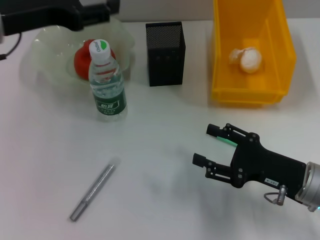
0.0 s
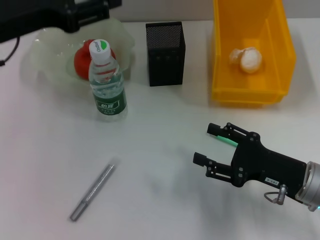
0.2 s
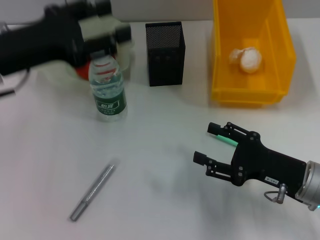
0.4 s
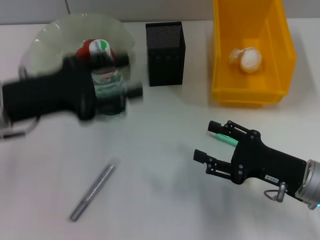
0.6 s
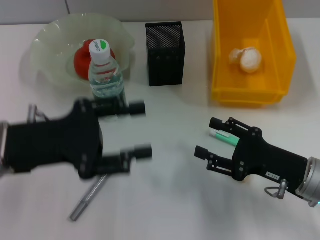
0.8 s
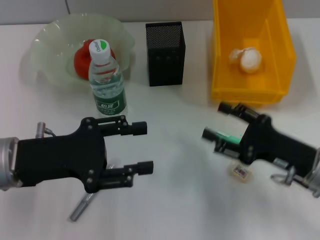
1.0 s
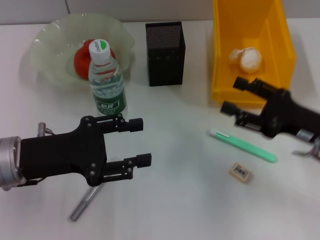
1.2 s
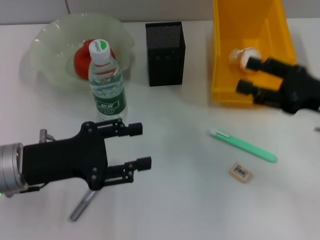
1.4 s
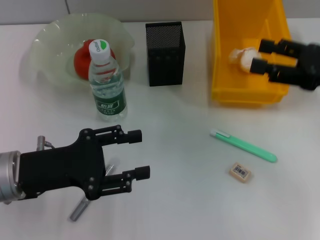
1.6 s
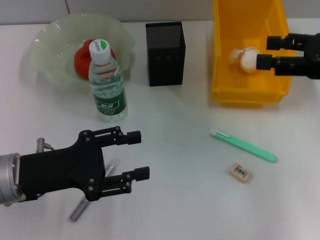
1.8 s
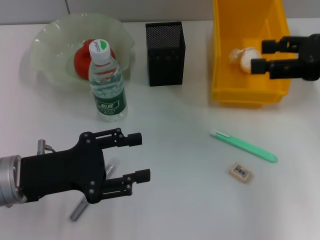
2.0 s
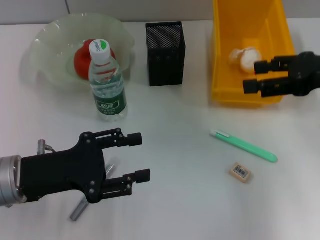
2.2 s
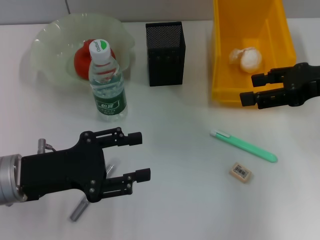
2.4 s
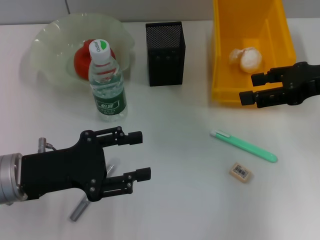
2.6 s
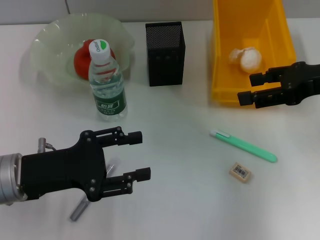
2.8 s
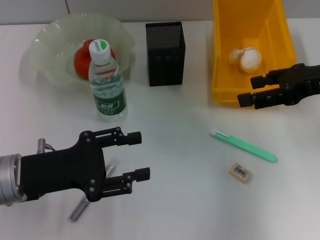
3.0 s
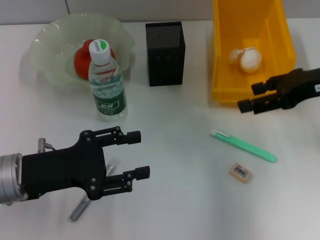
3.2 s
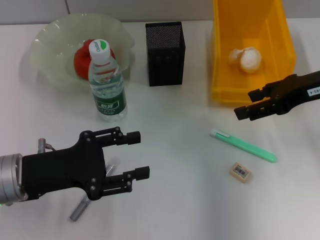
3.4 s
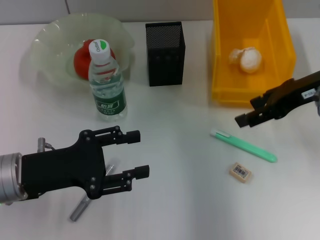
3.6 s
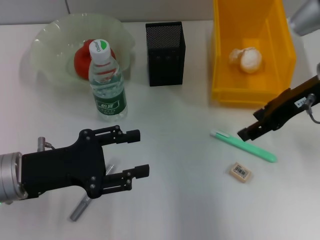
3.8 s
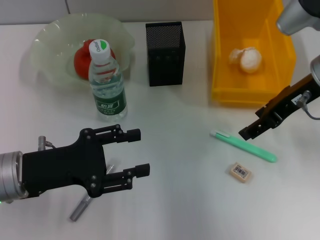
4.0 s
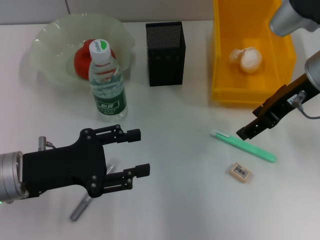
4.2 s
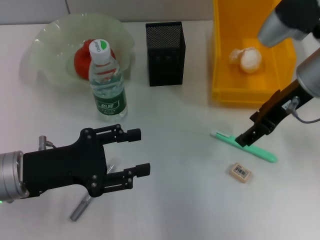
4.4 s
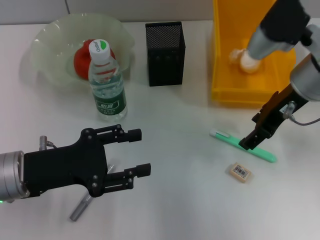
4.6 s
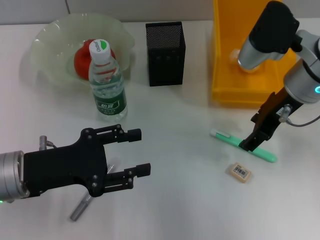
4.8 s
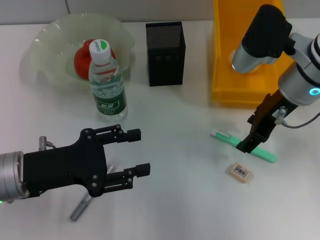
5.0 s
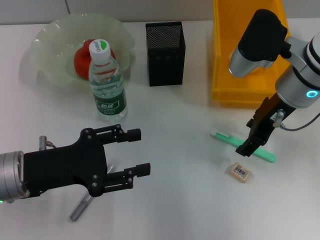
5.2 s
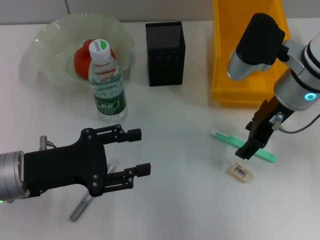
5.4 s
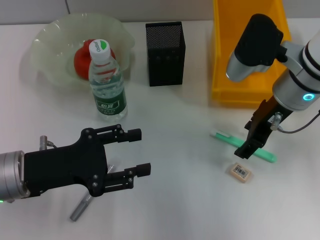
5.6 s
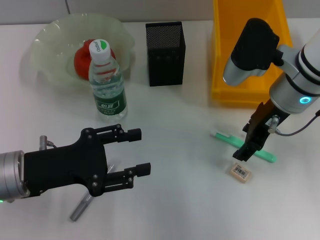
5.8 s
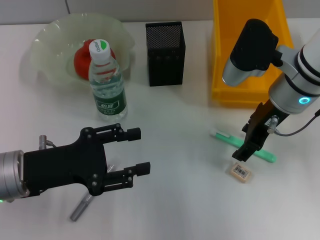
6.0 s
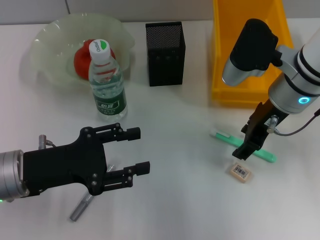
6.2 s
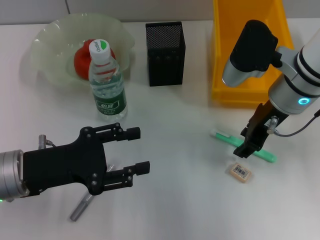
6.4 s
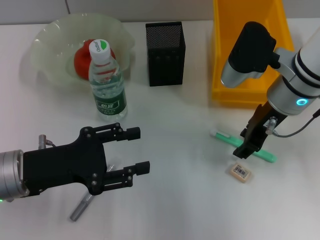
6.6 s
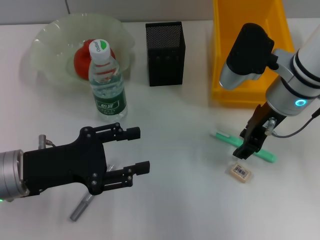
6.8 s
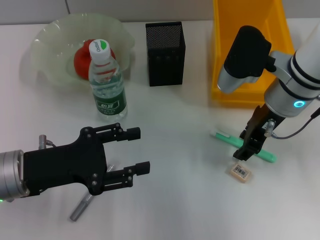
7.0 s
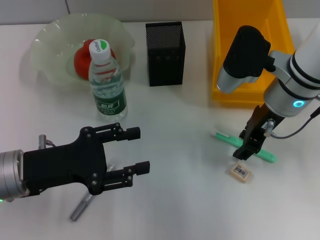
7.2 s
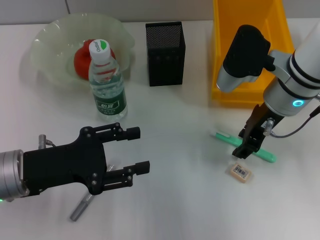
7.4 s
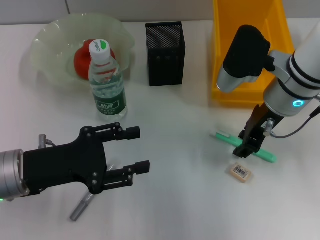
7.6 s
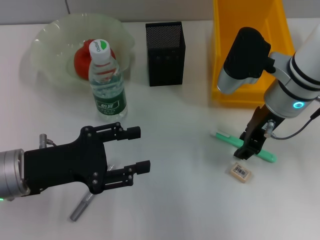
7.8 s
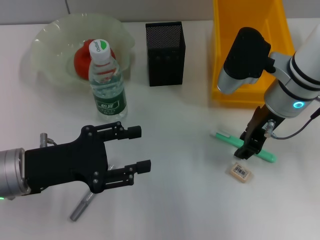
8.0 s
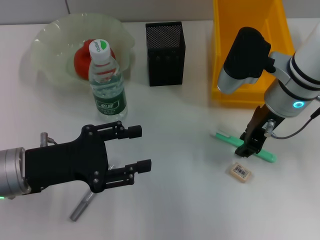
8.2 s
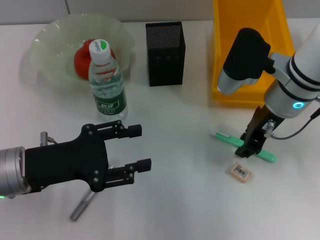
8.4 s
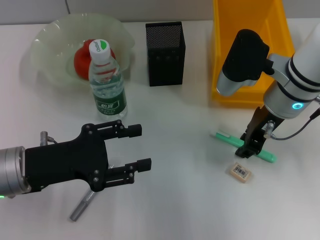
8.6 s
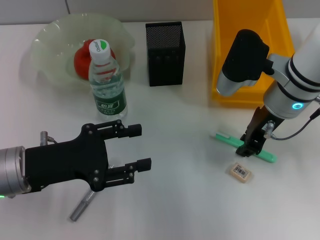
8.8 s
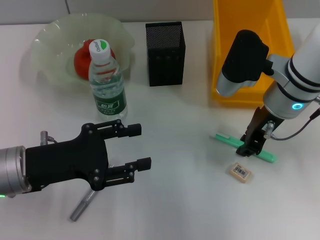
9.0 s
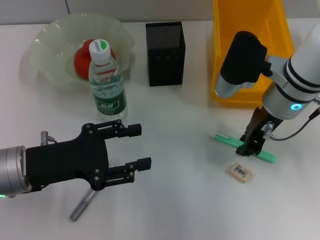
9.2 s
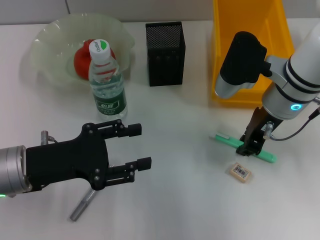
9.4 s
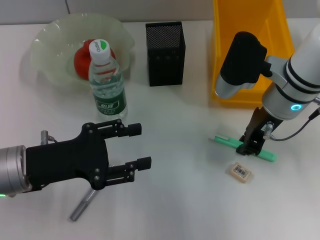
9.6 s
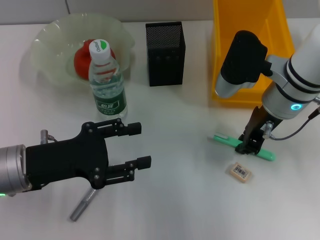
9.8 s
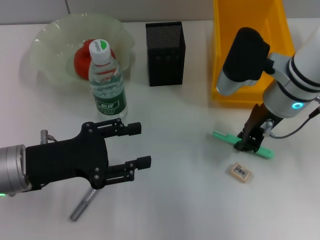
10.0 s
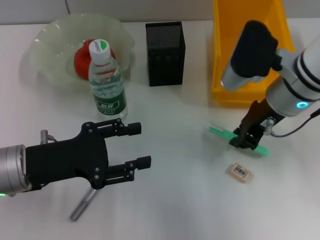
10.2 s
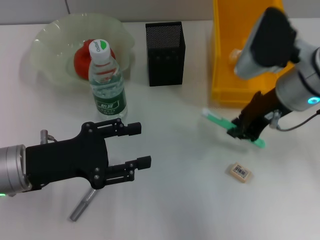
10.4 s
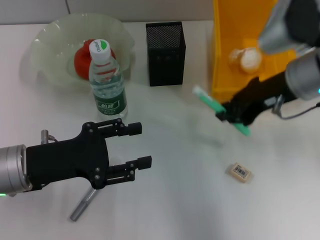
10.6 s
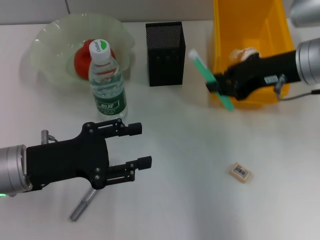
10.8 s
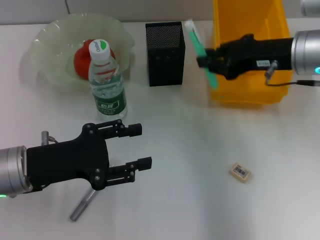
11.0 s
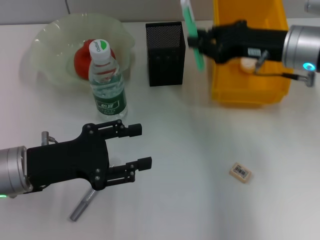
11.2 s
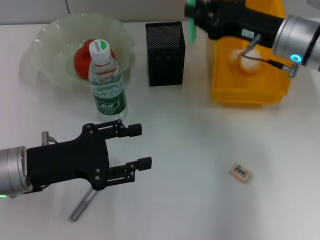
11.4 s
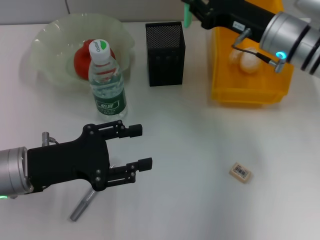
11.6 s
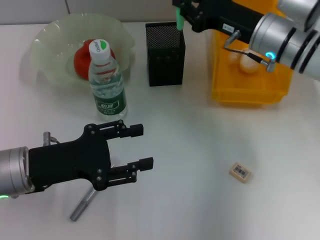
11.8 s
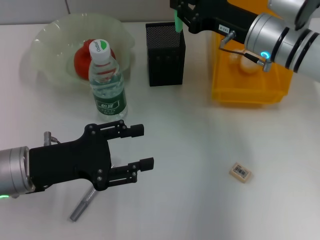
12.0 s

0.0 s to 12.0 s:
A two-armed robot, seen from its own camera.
Step, 0.0 to 9.6 s: Grab the blue utility knife with the right hand.
0.0 to 1.6 s: The left gripper moves downward and backward, approximately 15 cm. The right gripper is displaced upward, forward and to the right by some 20 cm.
3.0 to 4.4 s: The right gripper is displaced to the left by some 10 cm.
4.4 to 6.0 s: There are only small adjustments of the grippers.
6.0 to 7.6 s: Both grippers stay put.
7.6 to 9.0 s: Both grippers stay about where they are.
9.0 to 10.4 s: The grippers stay close to where they were, moving slightly.
10.4 to 12.0 s: The right gripper shifts about 5 cm forward.

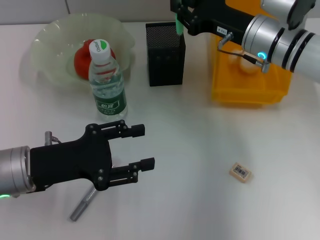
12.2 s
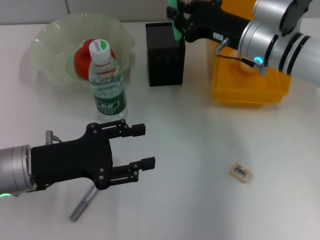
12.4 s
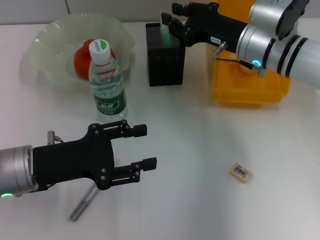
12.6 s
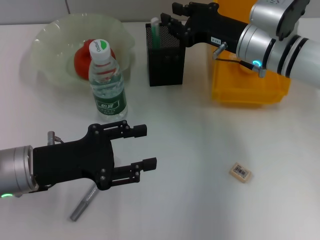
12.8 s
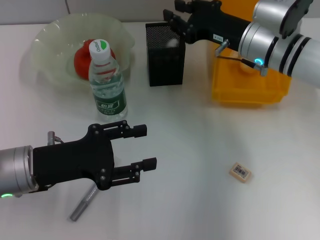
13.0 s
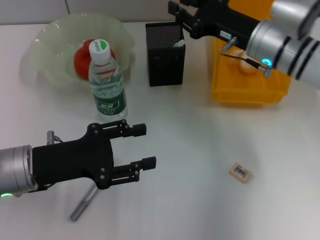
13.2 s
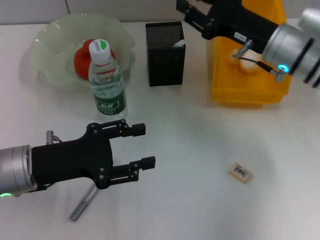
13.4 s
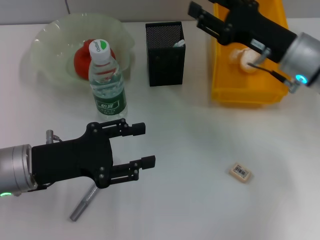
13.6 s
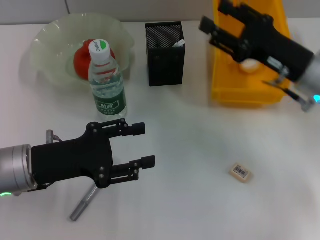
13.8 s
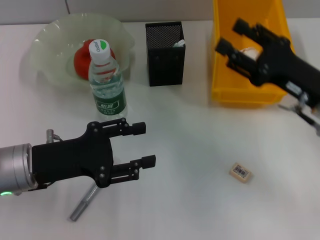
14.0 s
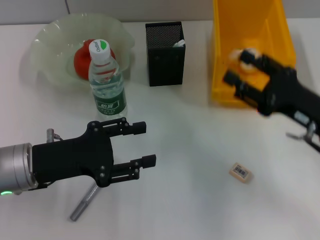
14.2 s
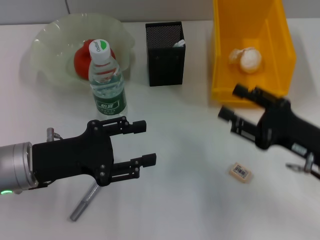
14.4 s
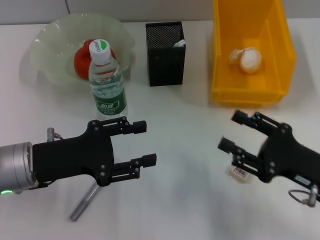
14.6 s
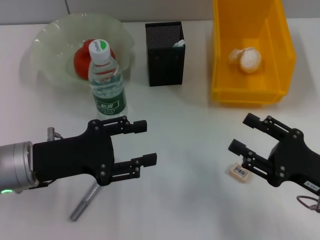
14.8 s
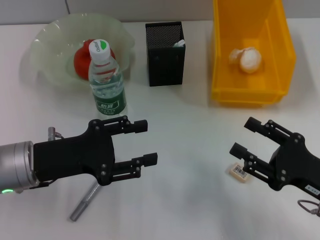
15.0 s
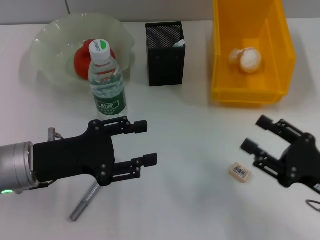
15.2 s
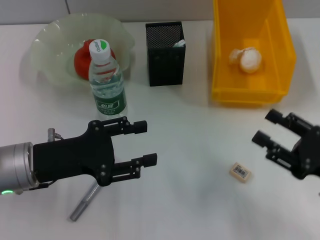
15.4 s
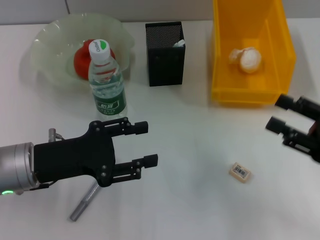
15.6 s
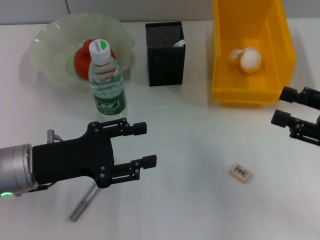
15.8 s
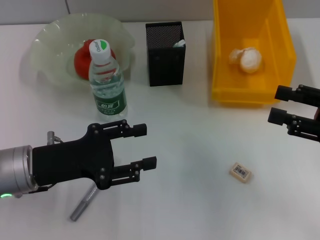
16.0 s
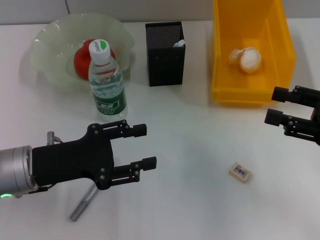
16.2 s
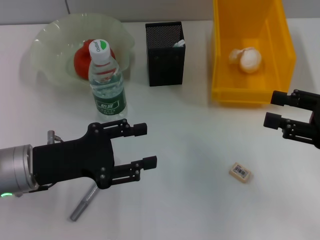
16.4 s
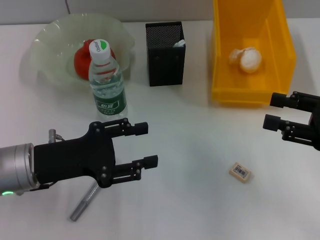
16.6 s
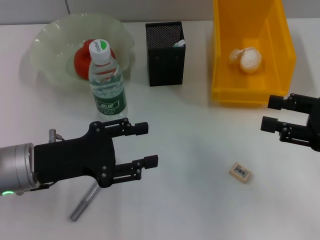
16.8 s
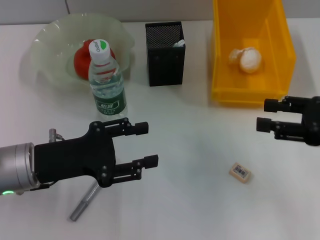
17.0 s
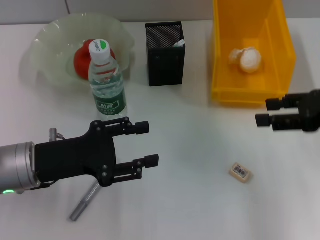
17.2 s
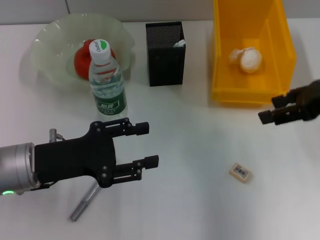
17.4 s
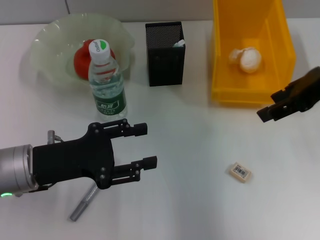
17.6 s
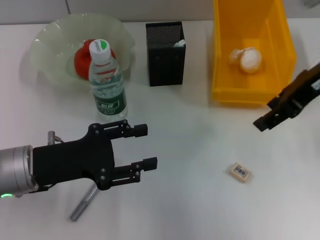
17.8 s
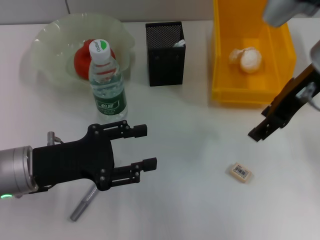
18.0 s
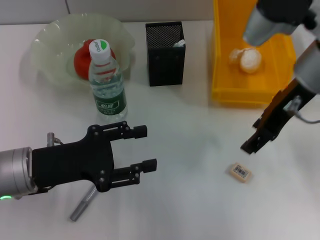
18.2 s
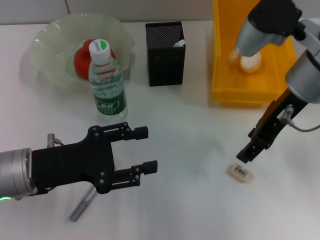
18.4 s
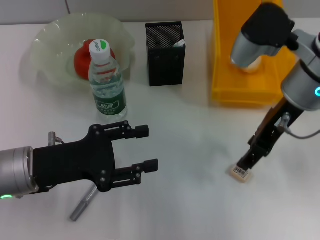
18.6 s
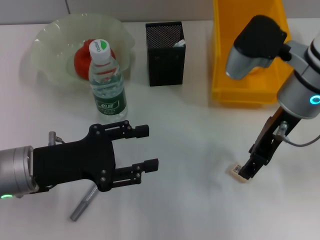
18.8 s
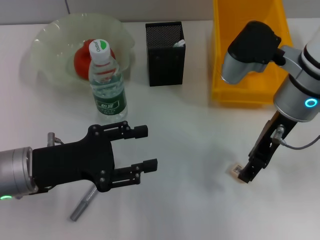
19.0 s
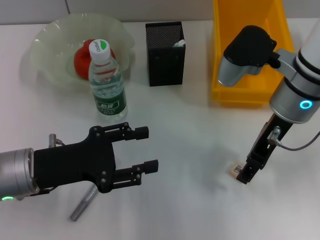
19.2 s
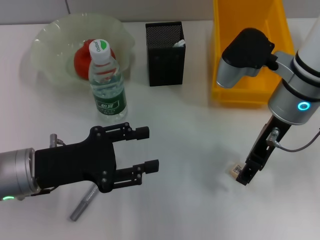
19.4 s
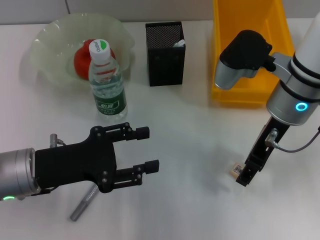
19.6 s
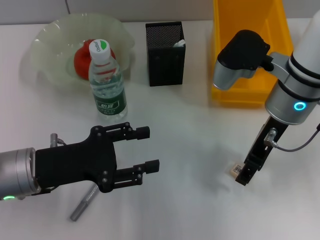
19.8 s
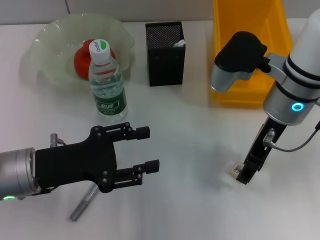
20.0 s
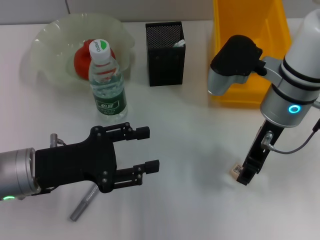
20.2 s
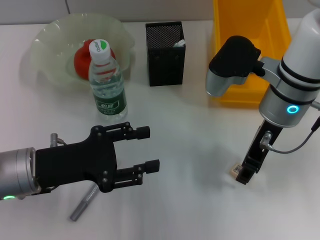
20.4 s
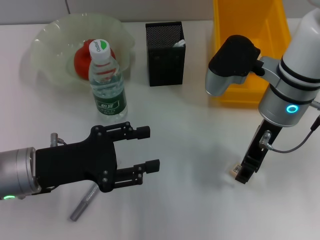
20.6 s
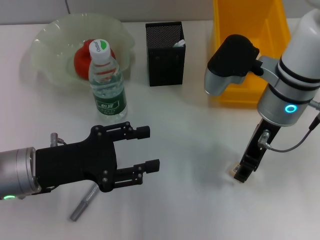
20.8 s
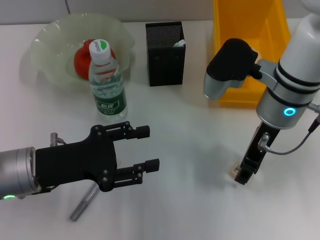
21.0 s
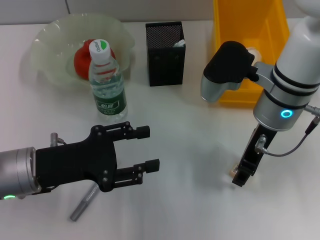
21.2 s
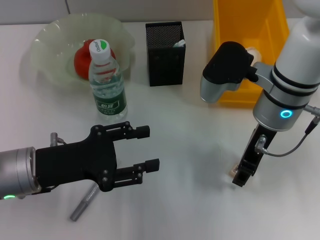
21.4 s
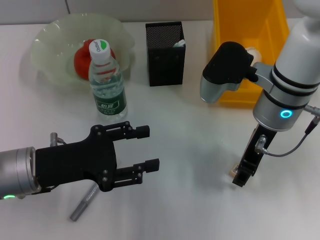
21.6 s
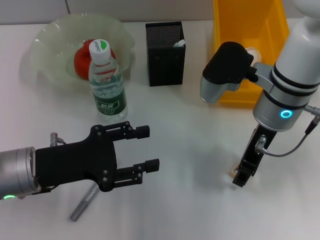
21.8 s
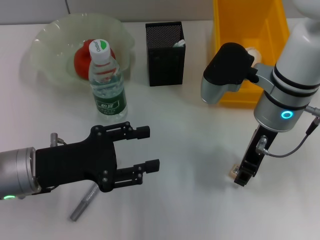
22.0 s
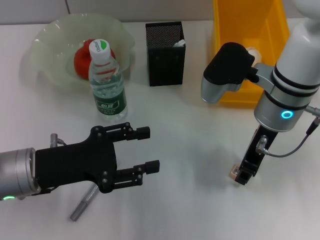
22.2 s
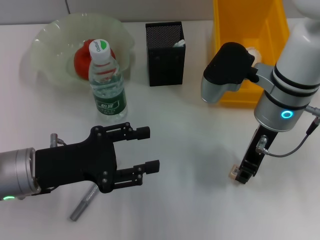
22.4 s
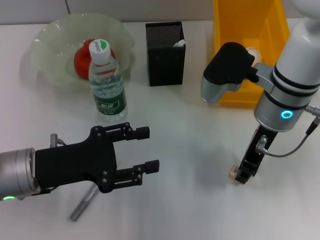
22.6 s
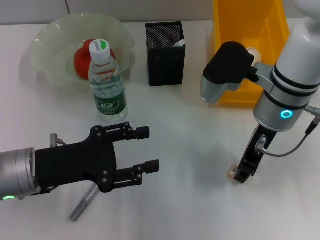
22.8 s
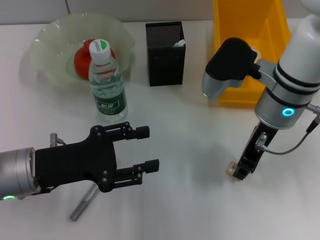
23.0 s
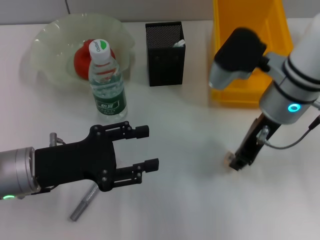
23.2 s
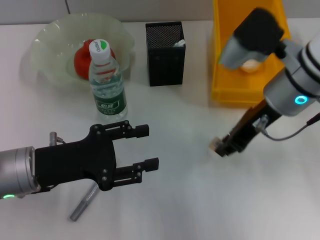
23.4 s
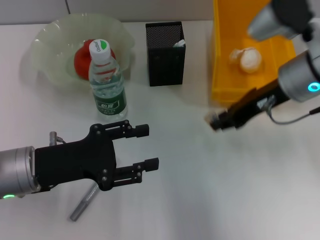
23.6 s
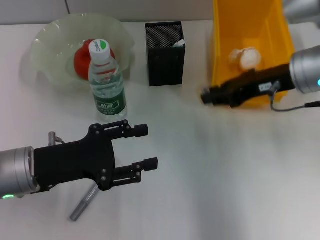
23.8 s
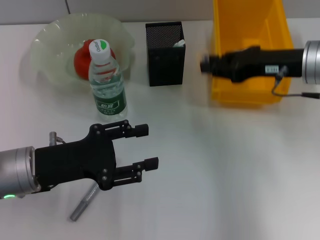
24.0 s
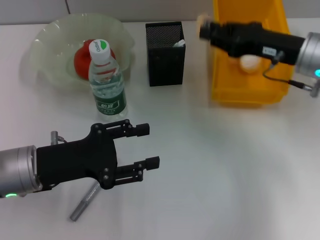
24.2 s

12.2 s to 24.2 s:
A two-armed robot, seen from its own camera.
Step, 13.2 to 22.4 s: Grab the eraser with the right hand.
12.2 to 13.8 s: The right gripper travels backward and to the right by approximately 10 cm, and opens up.
13.8 to 15.2 s: The right gripper heads backward and downward, covering approximately 15 cm.
15.2 to 16.6 s: The right gripper moves upward and forward, roughly 10 cm.
16.6 to 18.2 s: The right gripper travels to the left, forward and upward by roughly 20 cm.
18.2 to 19.8 s: The right gripper is displaced downward by about 5 cm.
19.8 to 21.2 s: The grippers stay close to where they were, moving slightly.
21.2 to 22.6 s: Neither gripper changes place.
22.6 to 24.2 s: The right gripper moves to the right, roughly 10 cm.
